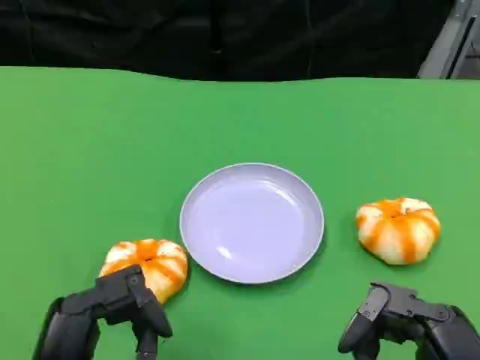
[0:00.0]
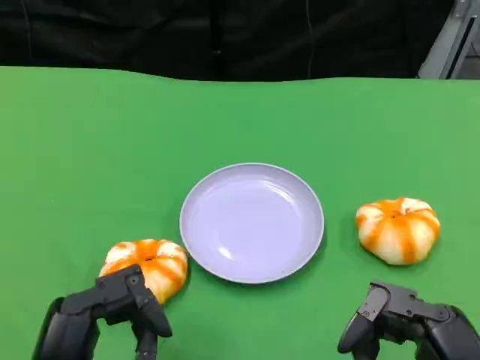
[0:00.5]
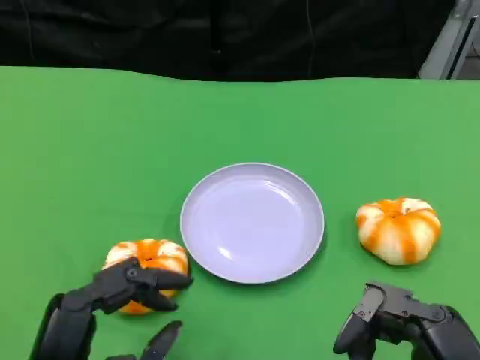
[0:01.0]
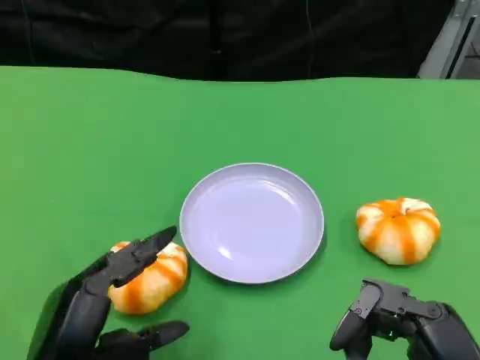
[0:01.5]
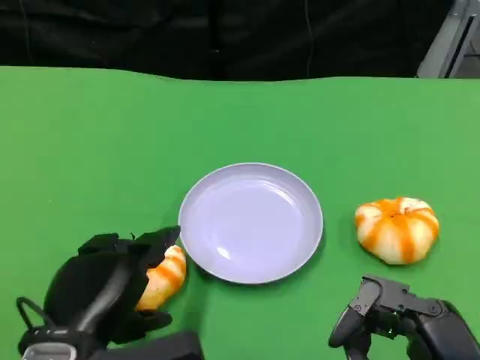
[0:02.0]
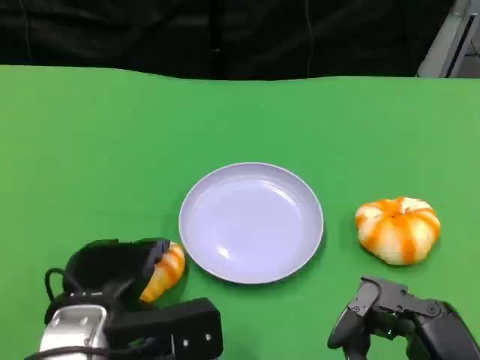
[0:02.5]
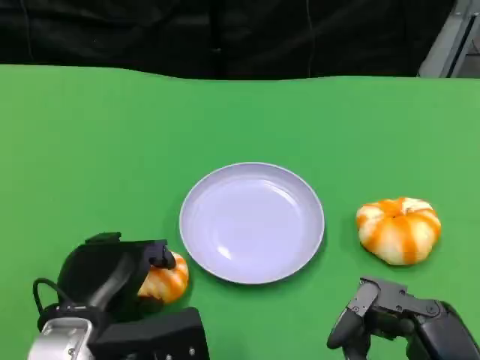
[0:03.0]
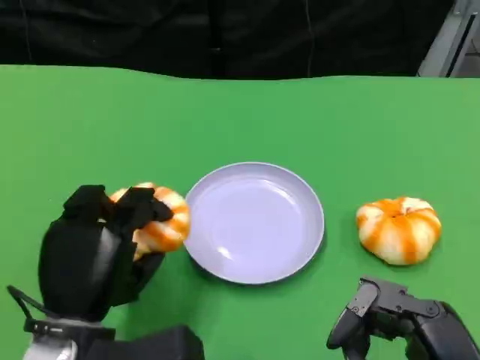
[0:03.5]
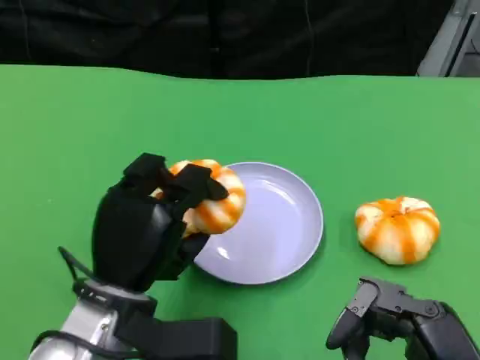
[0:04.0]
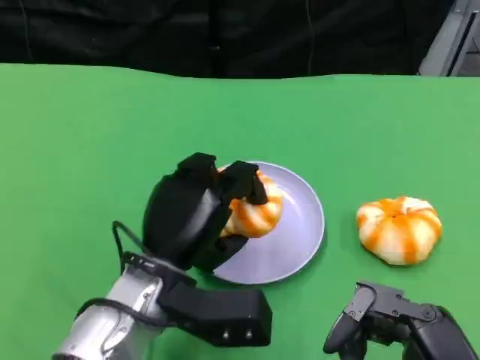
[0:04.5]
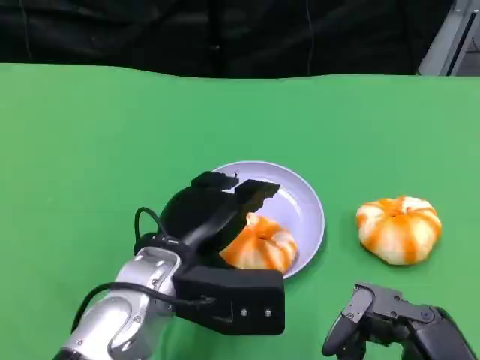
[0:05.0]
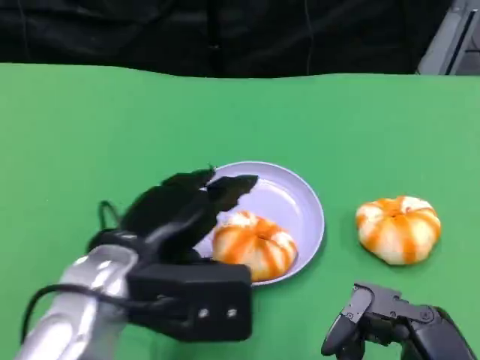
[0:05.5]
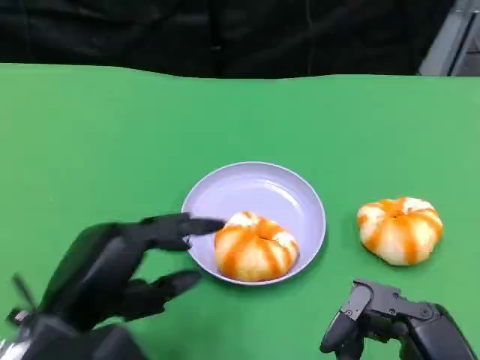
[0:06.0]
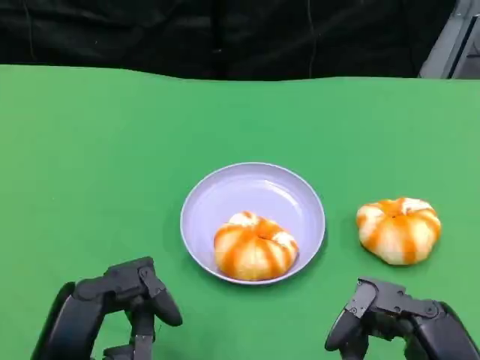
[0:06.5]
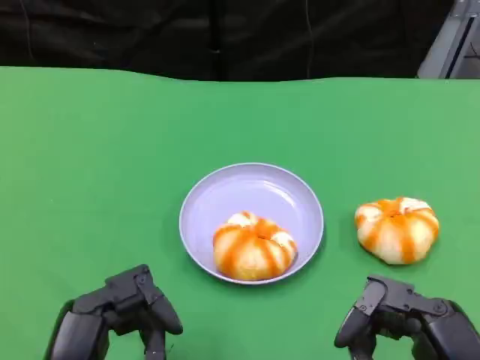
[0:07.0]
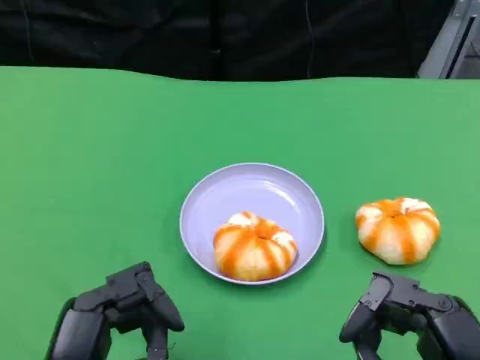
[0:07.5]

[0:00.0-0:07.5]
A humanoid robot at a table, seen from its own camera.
Task of the whole recording: Grasp the bread from the table and place it into the plate.
0:00.0 to 0:02.0: The left hand shifts approximately 5 cm forward.
0:02.0 to 0:04.0: The left hand travels forward by some 5 cm.
0:04.0 to 0:05.5: The left hand heads upward, covering about 5 cm.
0:05.5 to 0:07.5: The left hand goes about 10 cm backward and downward.

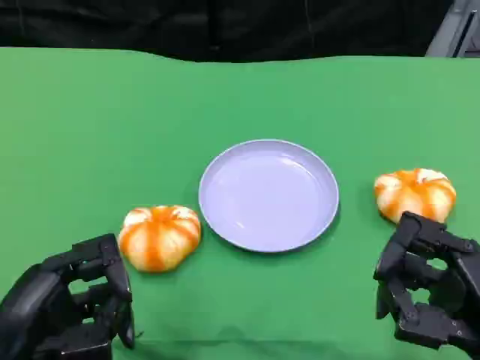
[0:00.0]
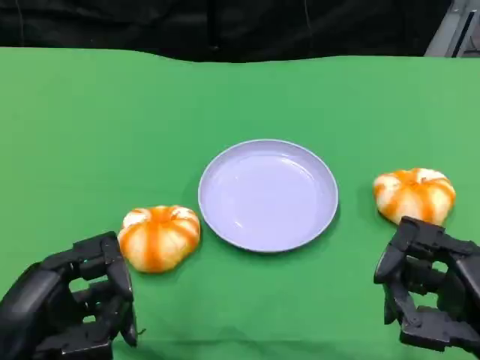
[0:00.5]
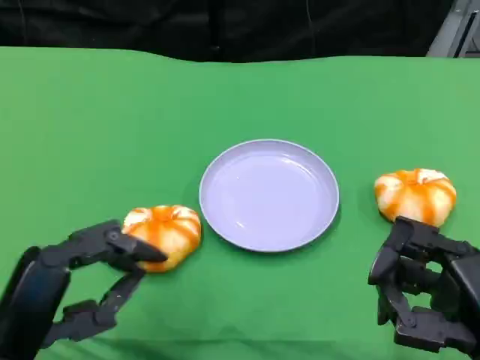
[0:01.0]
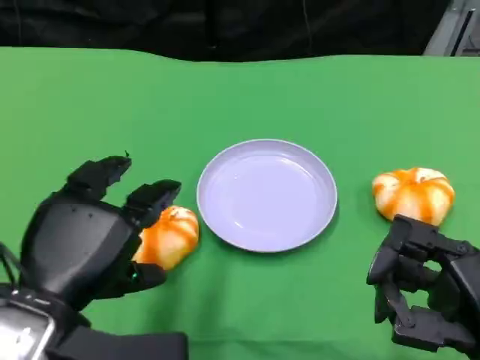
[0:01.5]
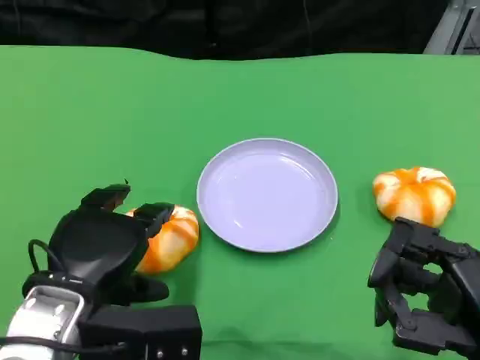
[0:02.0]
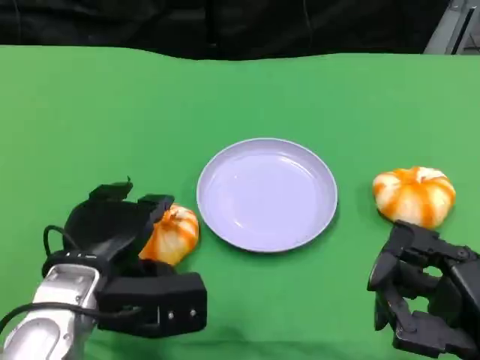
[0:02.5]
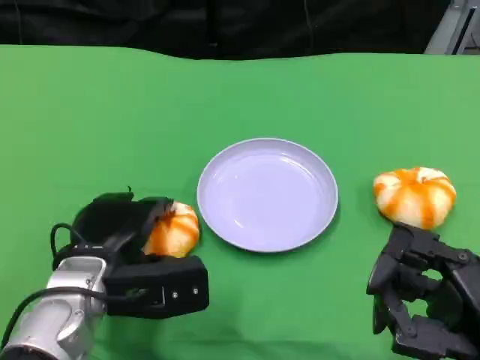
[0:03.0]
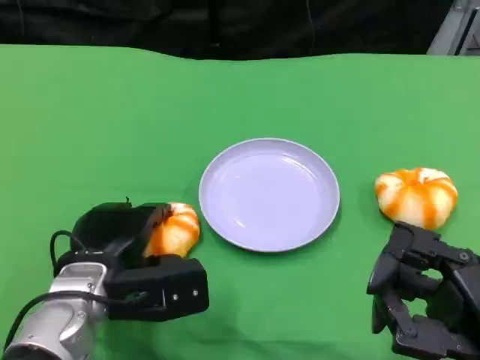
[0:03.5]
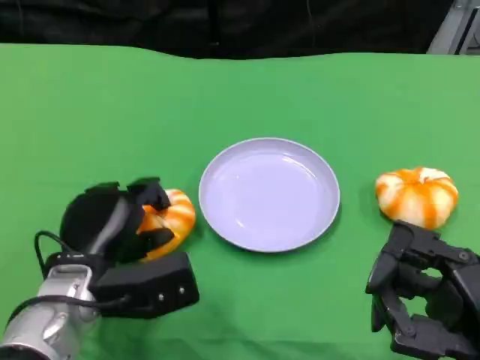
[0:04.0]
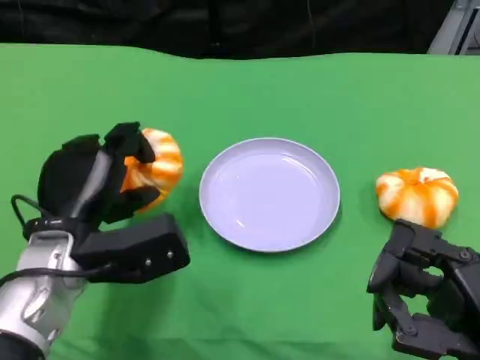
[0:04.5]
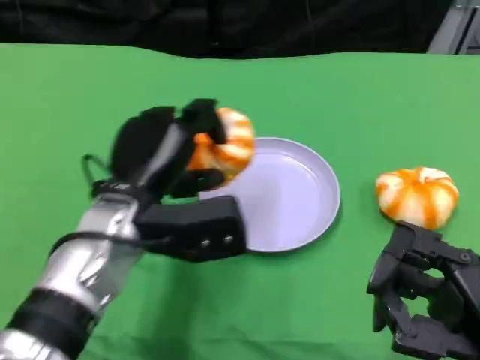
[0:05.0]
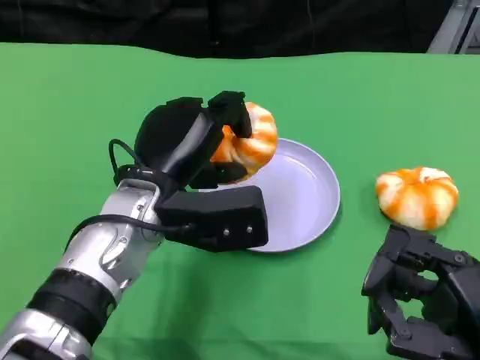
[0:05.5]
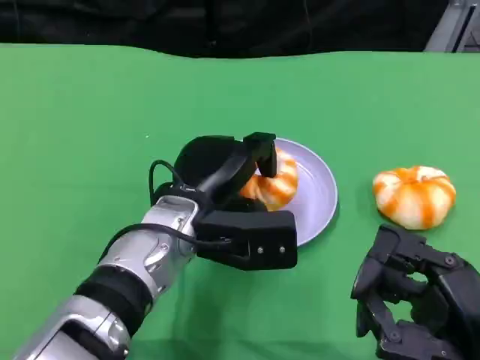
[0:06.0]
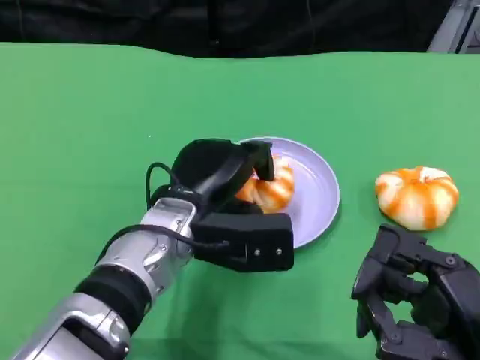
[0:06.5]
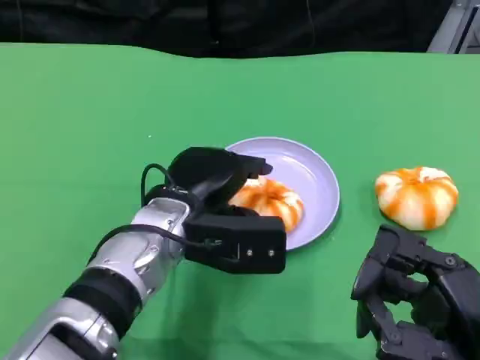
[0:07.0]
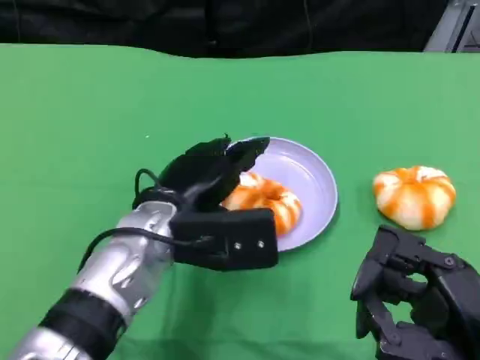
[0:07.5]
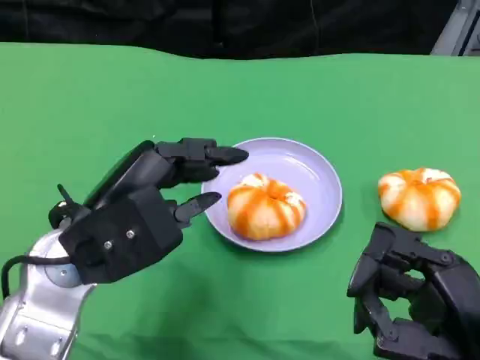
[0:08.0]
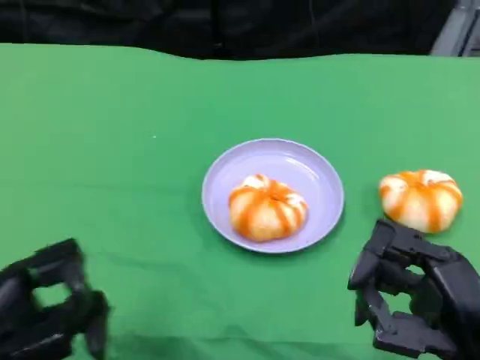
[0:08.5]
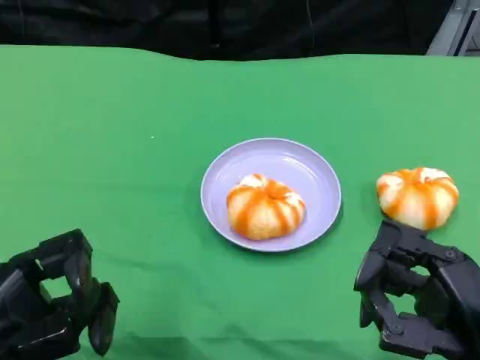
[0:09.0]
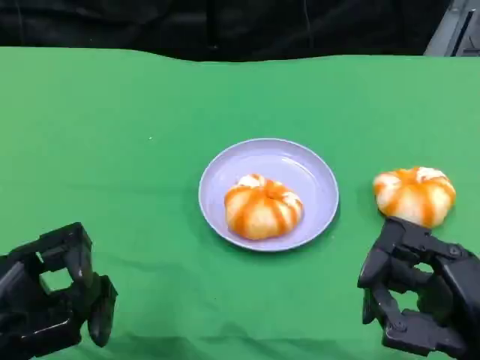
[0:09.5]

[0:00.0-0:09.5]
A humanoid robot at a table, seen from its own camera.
Task of the whole recording: Grasp the bread from the table and place it into the plate.
0:00.0 to 0:02.0: The left hand is displaced forward and to the right by about 10 cm.
0:02.0 to 0:04.0: The left hand goes some 5 cm forward and downward.
0:04.0 to 0:05.5: The left hand shifts roughly 10 cm upward and to the right.
0:07.5 to 0:09.5: The left hand heads to the left and backward, covering about 20 cm.

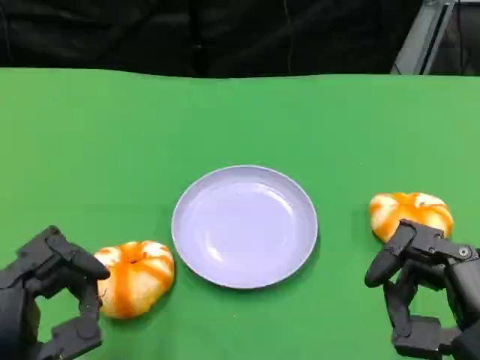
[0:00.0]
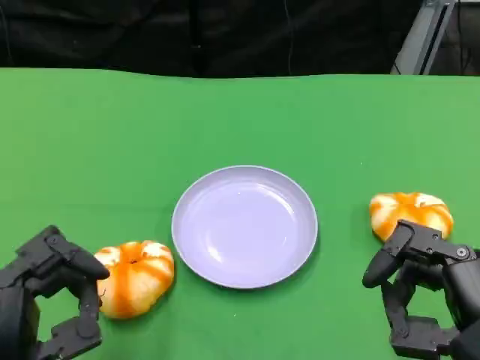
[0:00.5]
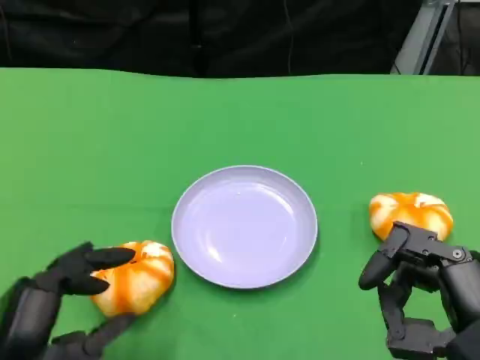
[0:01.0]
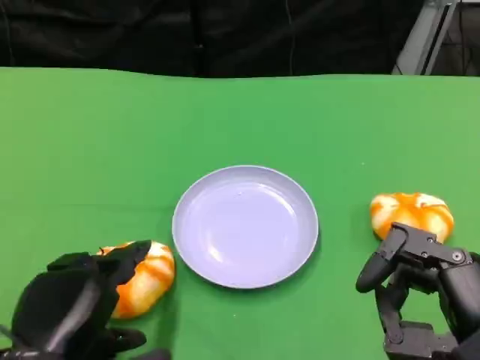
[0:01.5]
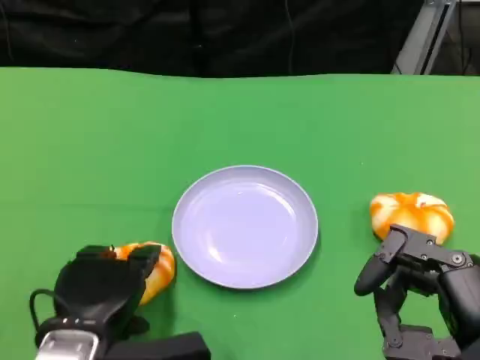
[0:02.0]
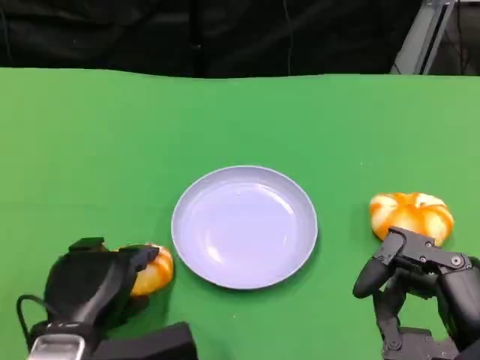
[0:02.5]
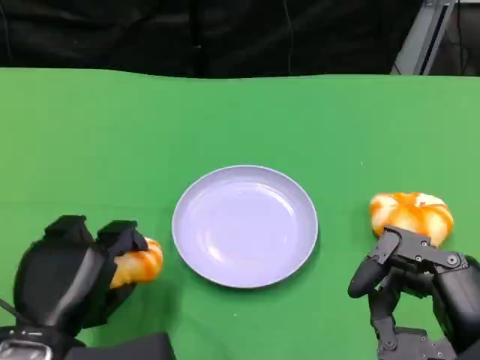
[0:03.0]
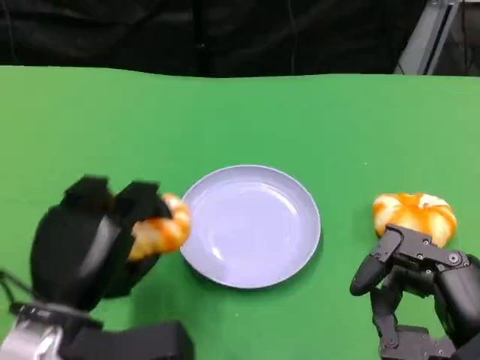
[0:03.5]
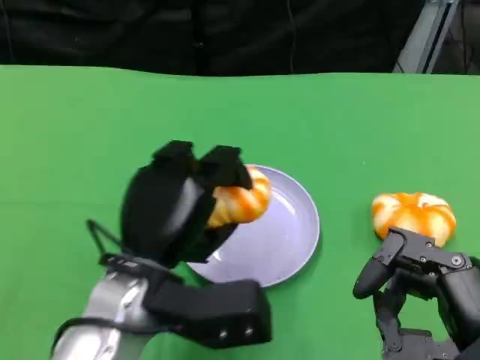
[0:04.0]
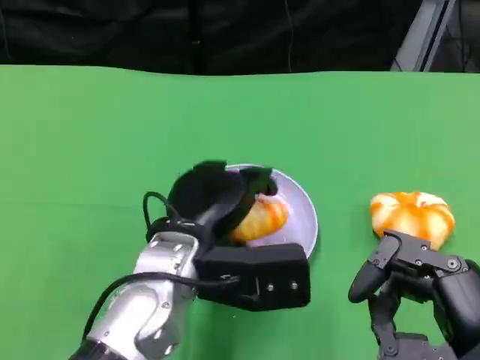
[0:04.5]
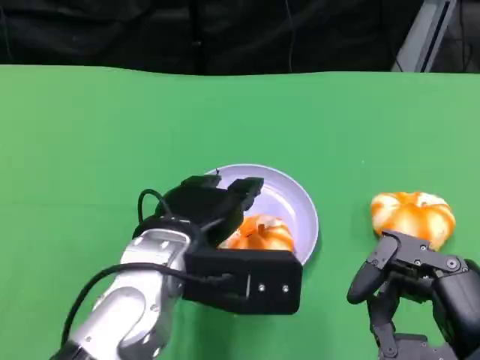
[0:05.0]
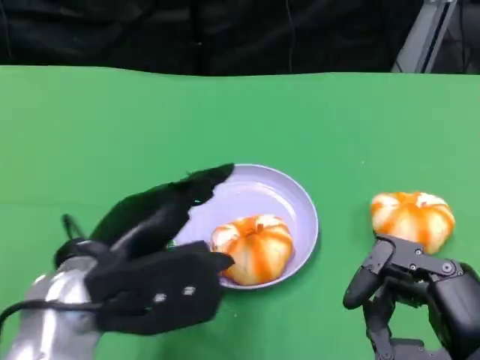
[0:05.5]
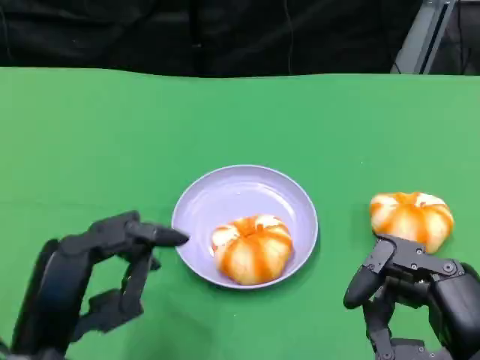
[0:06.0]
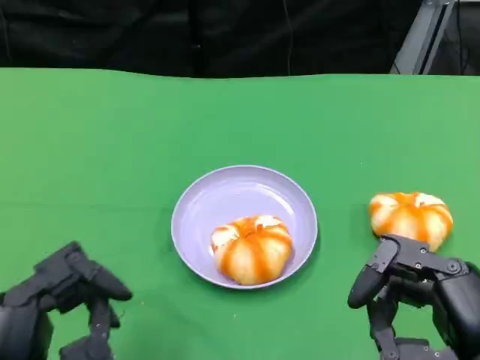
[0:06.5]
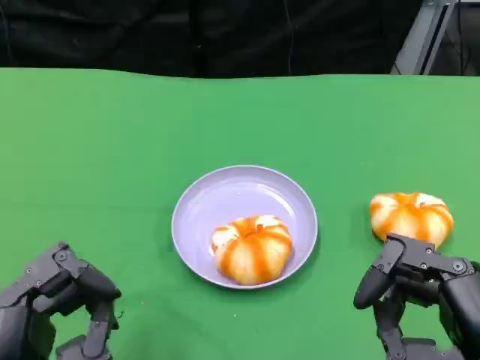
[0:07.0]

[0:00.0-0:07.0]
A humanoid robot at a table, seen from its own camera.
Task of the whole recording: Grasp the bread from the table and place it into the plate.
0:00.0 to 0:02.0: The left hand moves forward, about 5 cm.
0:03.5 to 0:05.0: The left hand heads to the right, covering some 10 cm.
0:05.0 to 0:07.0: The left hand goes about 20 cm backward and to the left.

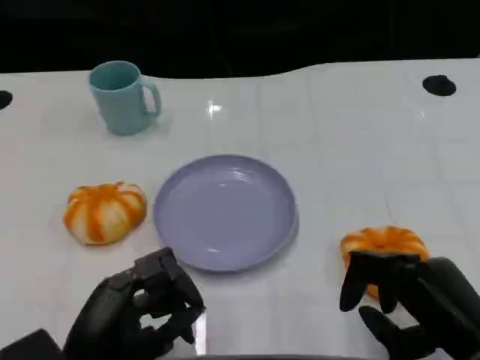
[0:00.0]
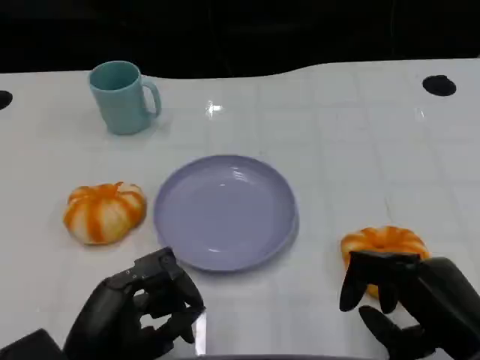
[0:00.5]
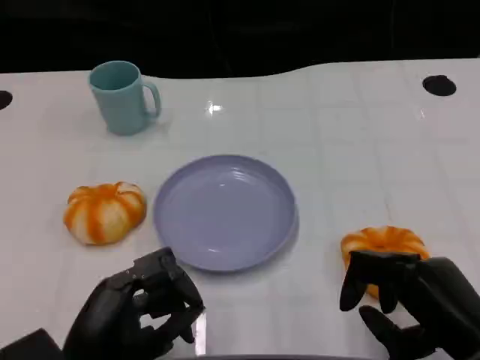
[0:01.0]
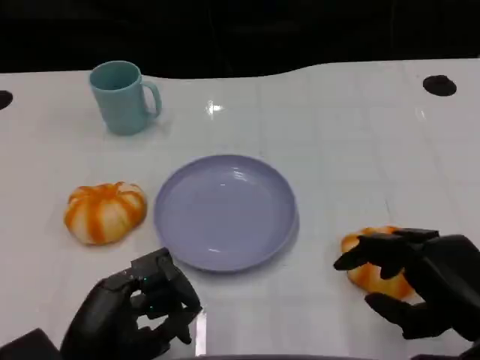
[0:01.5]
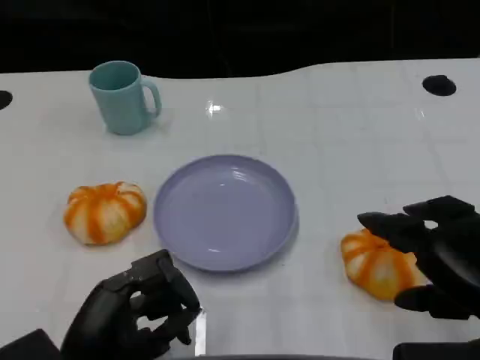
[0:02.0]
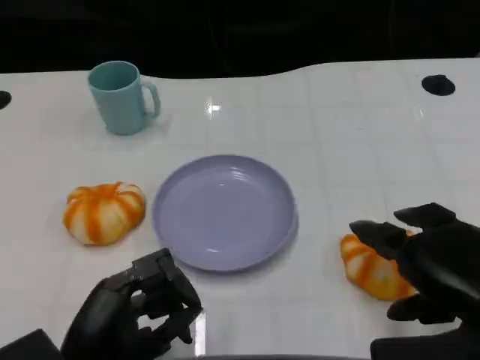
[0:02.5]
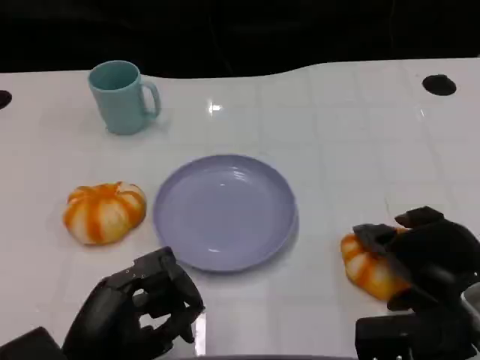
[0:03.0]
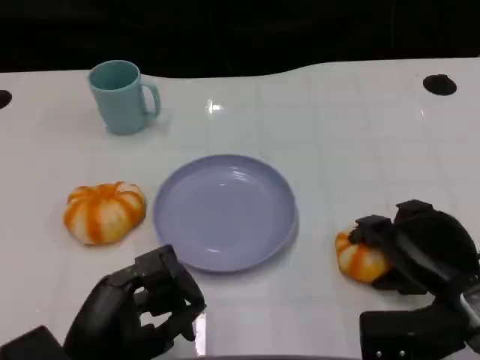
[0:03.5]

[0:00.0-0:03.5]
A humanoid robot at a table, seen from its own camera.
Task of the whole recording: Grasp the bread from the table and place it into the plate.
0:00.0 to 0:02.0: The right hand heads upward, covering some 5 cm.
0:02.0 to 0:03.5: The right hand is displaced downward and forward by roughly 10 cm.
